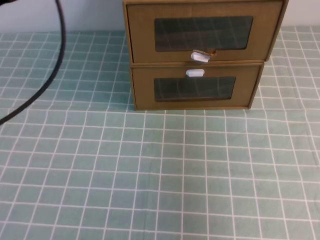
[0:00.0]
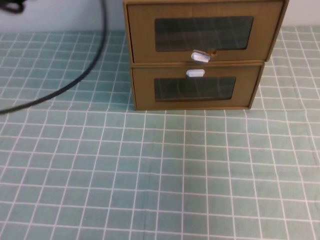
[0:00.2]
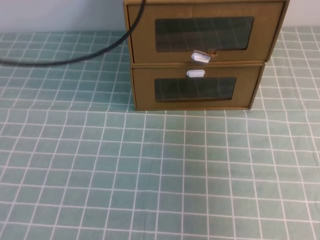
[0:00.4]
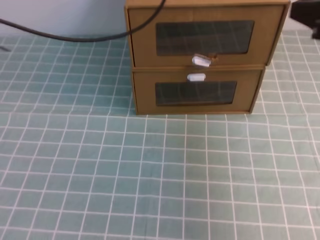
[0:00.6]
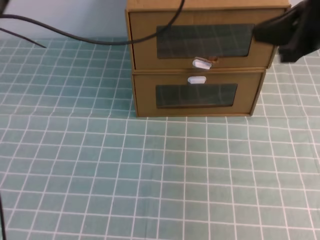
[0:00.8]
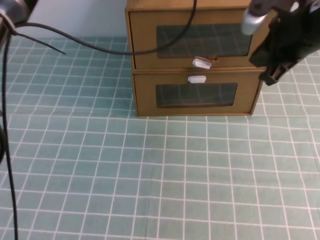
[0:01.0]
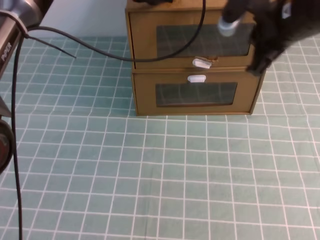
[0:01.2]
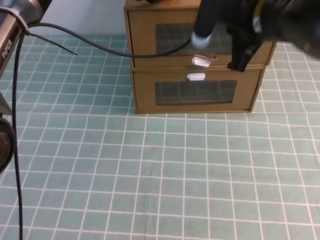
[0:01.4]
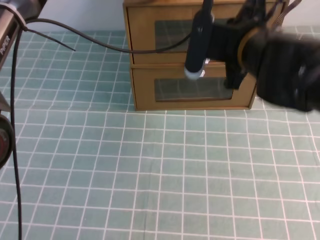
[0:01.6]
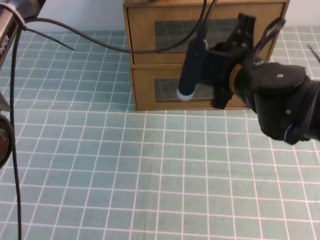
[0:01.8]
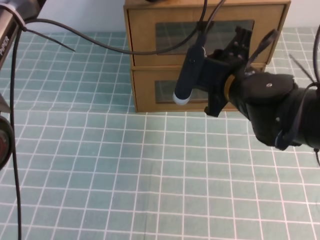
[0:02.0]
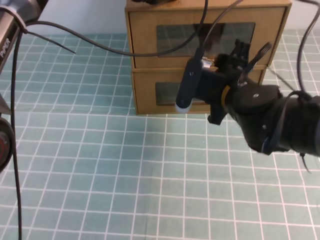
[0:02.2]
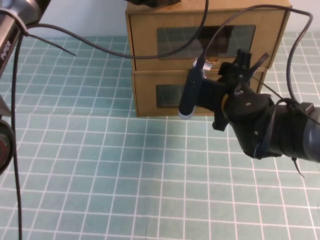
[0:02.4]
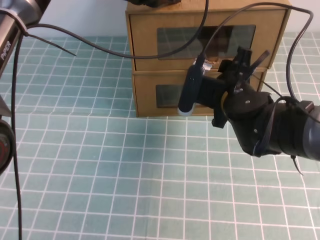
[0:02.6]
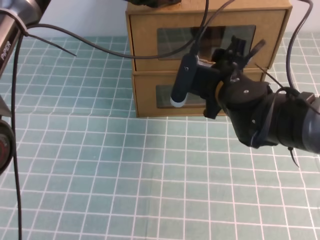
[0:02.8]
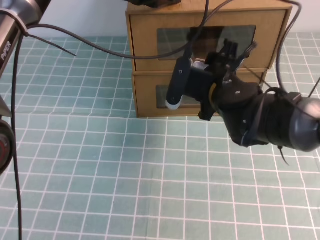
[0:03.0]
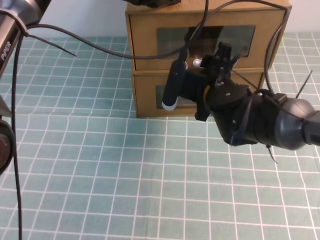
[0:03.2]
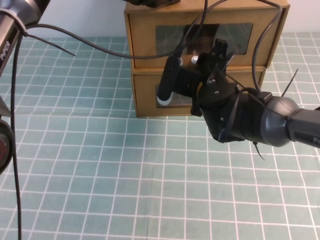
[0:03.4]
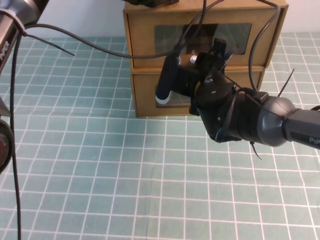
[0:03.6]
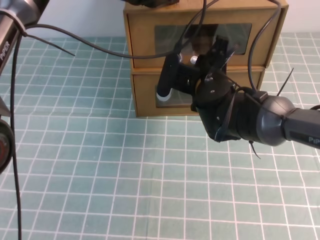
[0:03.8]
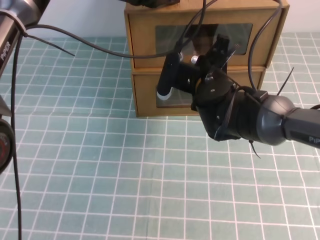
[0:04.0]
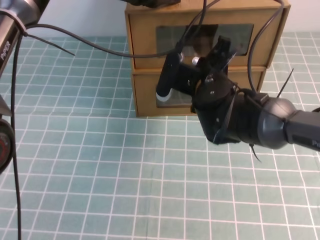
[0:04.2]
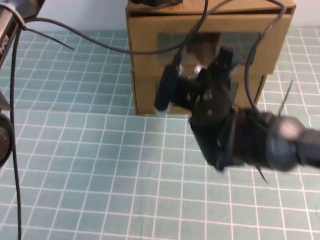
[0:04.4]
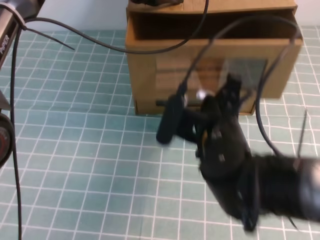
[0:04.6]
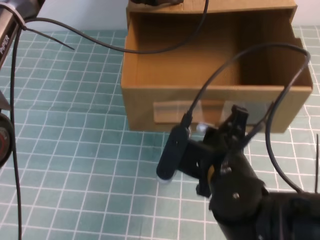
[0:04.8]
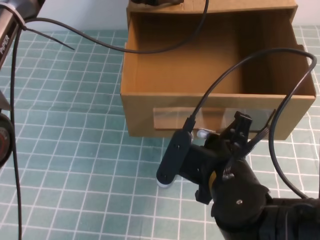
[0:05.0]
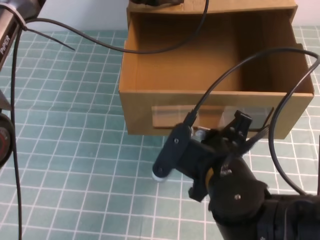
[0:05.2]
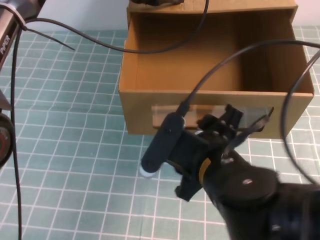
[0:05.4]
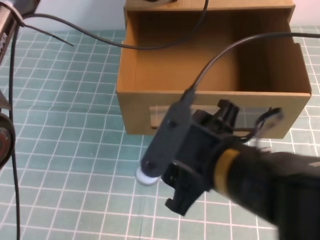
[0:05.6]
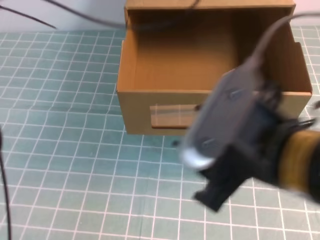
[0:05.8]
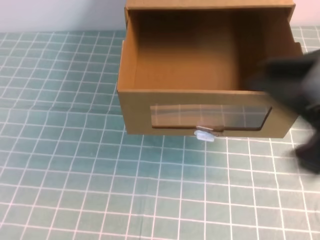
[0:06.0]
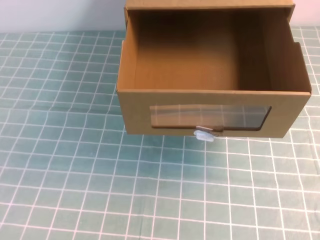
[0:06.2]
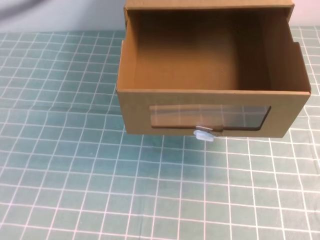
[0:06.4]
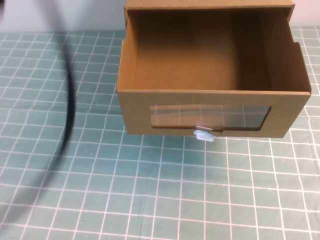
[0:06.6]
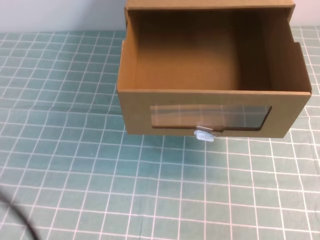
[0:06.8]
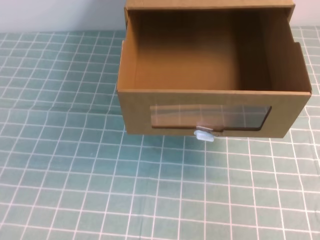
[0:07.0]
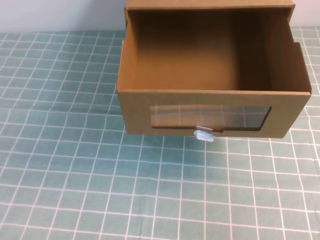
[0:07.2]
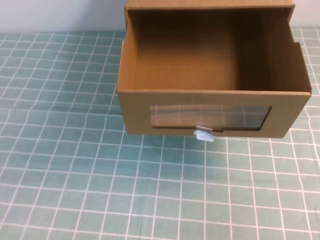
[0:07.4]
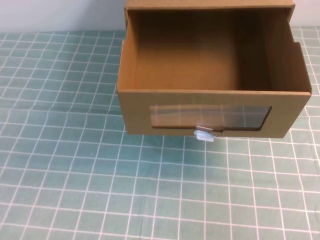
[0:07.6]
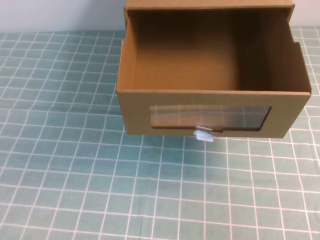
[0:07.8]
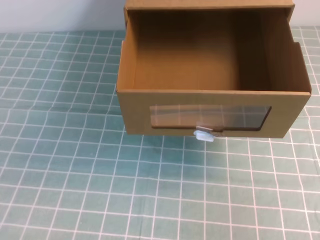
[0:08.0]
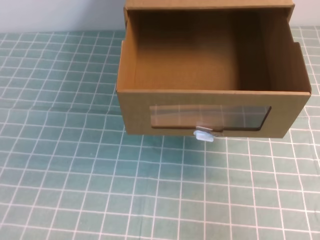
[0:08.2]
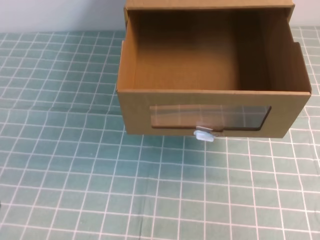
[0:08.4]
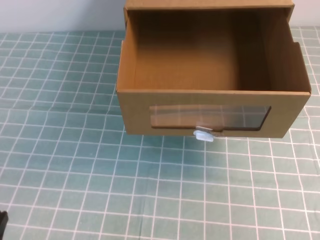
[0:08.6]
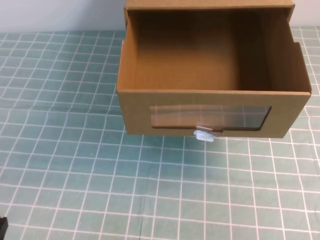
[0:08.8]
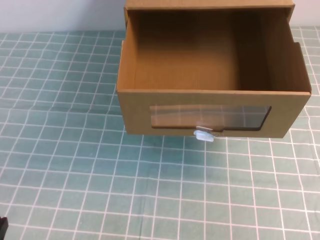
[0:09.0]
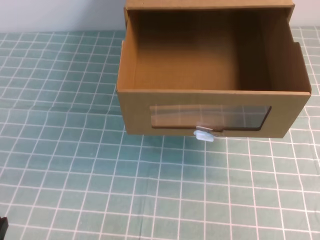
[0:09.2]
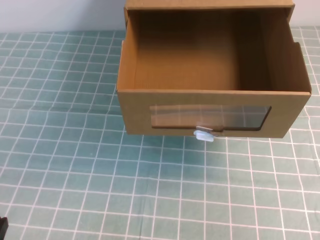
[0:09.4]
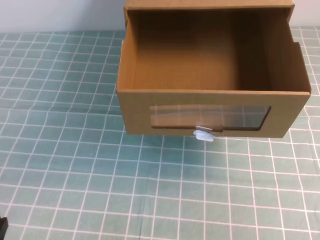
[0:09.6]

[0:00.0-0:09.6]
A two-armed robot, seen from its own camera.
Task of the whole recording: open the shoebox on the cyan tablecloth.
0:00.0 to 0:01.6: The left gripper heads forward and to the right, covering approximately 25 cm, while the right gripper travels to the left, forward and downward by approximately 25 cm.
0:01.6 to 0:03.2: The right gripper travels downward by roughly 10 cm, and opens its fingers.
0:03.2 to 0:04.8: The right gripper shifts approximately 15 cm backward, and closes.
0:04.8 to 0:06.4: The right gripper heads to the right, upward and backward, covering about 35 cm, and opens and closes again. The left gripper travels backward, upward and to the left by approximately 35 cm.
0:06.4 to 0:08.0: The left gripper moves downward and backward, approximately 30 cm. Meanwhile the right gripper heads downward, covering some 10 cm.

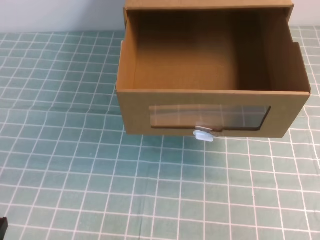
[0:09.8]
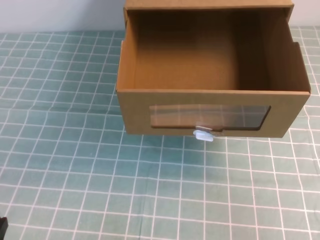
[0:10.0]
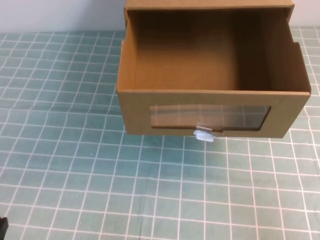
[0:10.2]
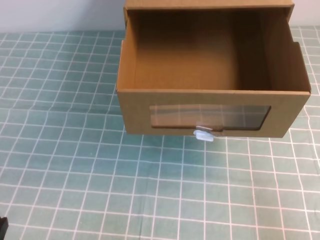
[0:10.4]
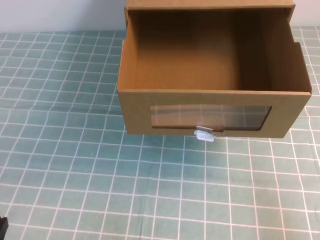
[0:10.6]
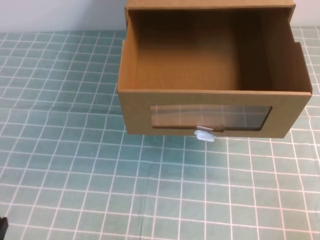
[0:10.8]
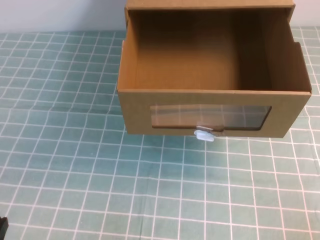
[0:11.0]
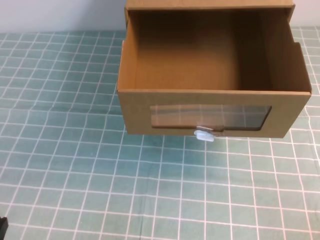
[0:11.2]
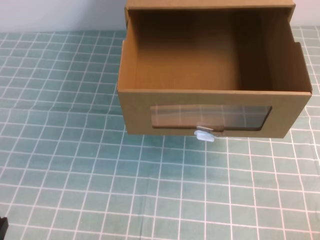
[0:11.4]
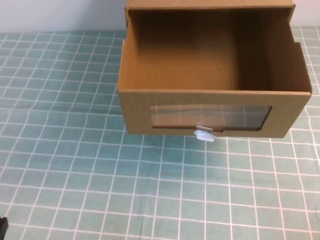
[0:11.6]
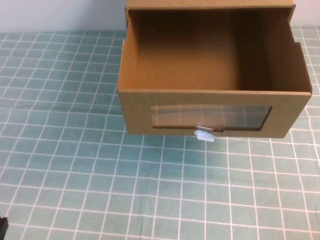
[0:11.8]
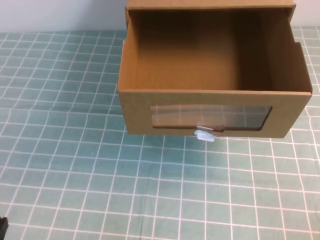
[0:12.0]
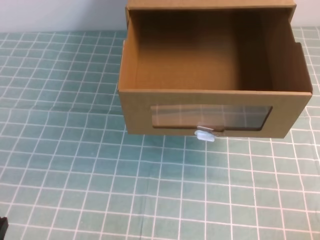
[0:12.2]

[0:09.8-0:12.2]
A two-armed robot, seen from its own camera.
Task of the whole recording: open the shoebox on the cyan tablecloth.
0:09.8 to 0:11.0: The right gripper travels downward by some 15 cm.

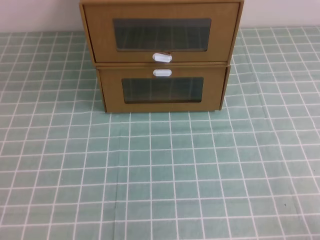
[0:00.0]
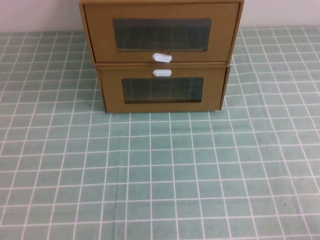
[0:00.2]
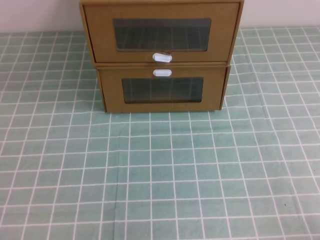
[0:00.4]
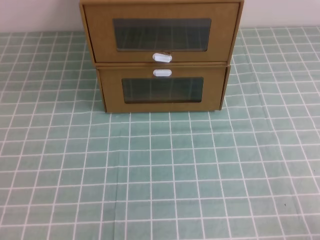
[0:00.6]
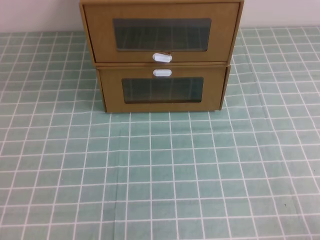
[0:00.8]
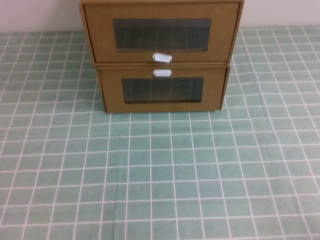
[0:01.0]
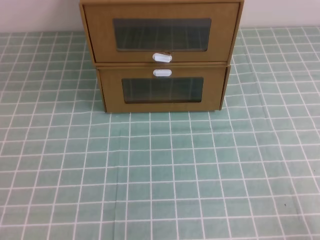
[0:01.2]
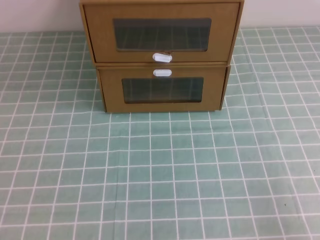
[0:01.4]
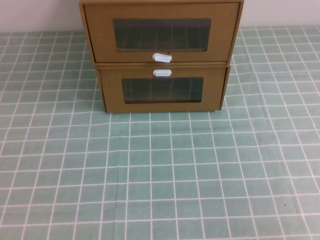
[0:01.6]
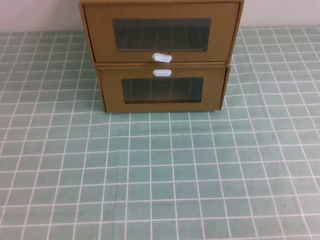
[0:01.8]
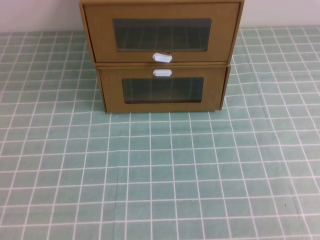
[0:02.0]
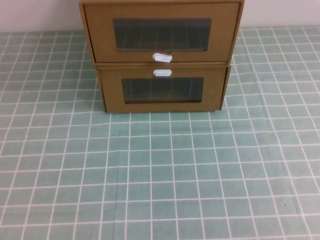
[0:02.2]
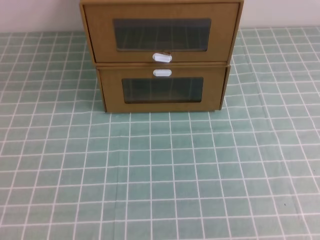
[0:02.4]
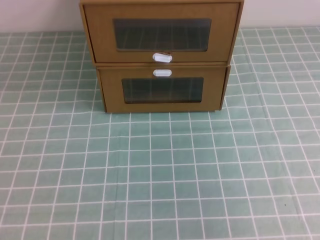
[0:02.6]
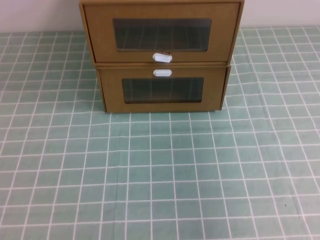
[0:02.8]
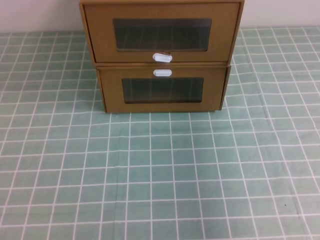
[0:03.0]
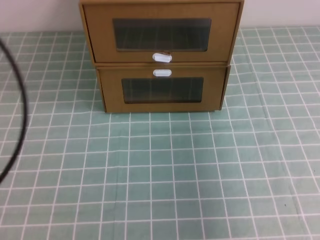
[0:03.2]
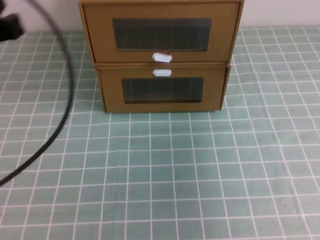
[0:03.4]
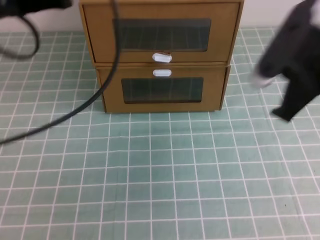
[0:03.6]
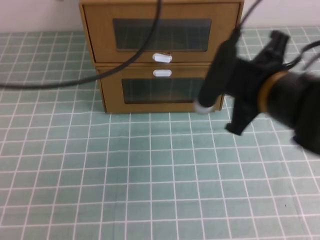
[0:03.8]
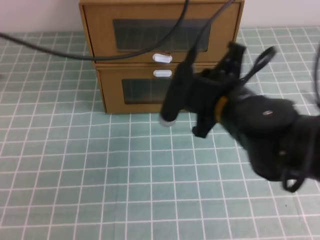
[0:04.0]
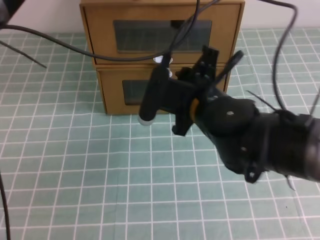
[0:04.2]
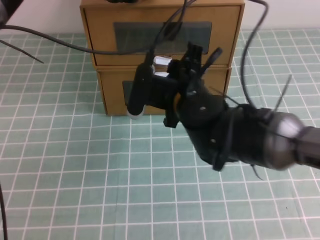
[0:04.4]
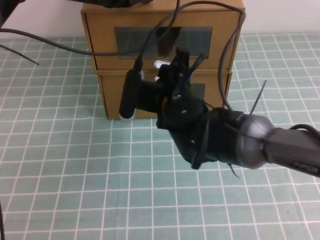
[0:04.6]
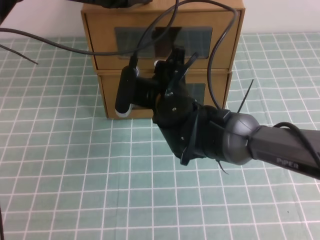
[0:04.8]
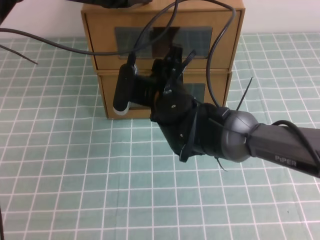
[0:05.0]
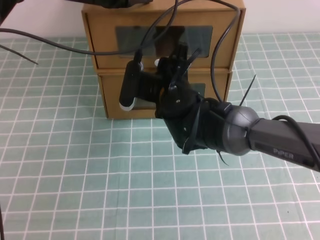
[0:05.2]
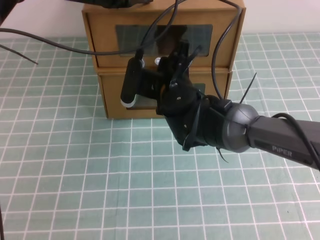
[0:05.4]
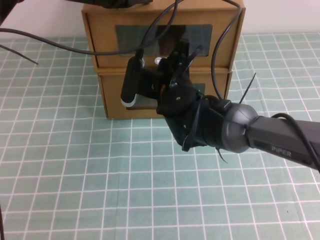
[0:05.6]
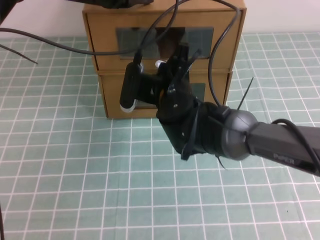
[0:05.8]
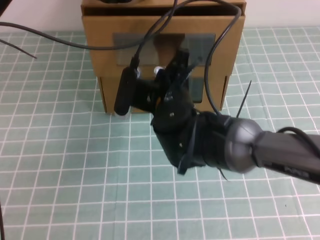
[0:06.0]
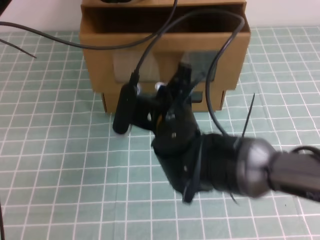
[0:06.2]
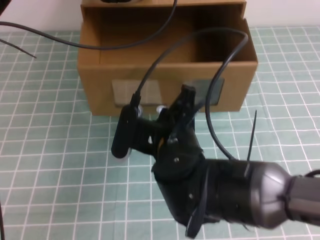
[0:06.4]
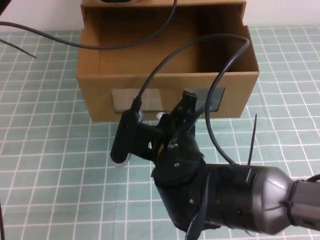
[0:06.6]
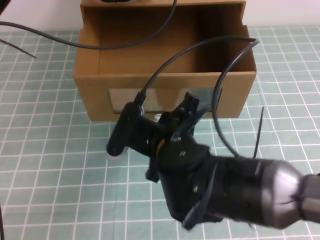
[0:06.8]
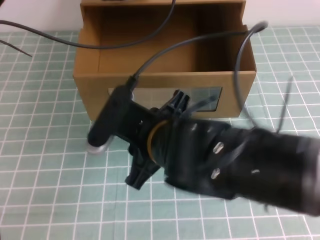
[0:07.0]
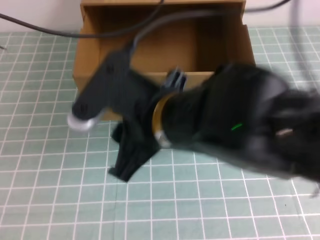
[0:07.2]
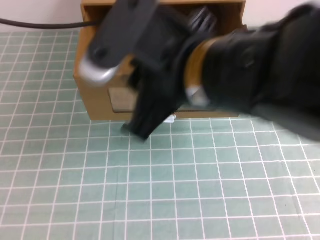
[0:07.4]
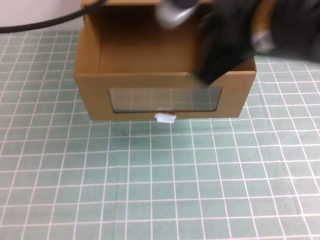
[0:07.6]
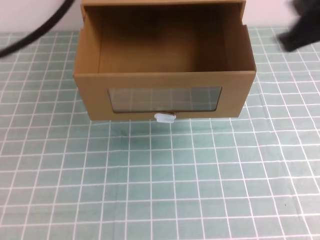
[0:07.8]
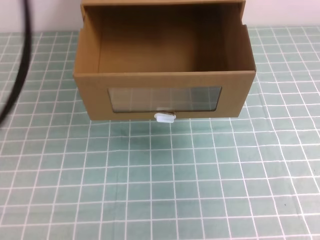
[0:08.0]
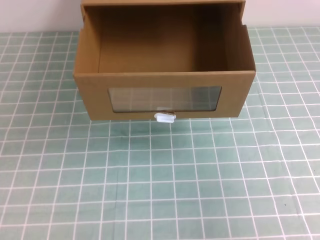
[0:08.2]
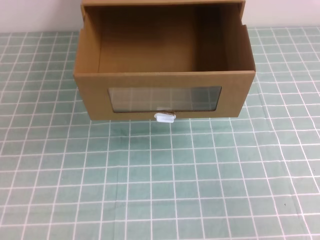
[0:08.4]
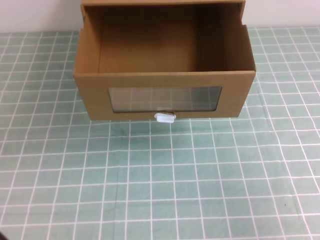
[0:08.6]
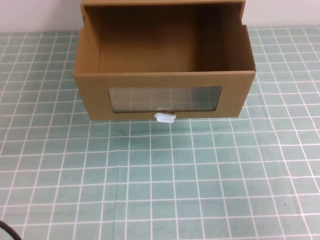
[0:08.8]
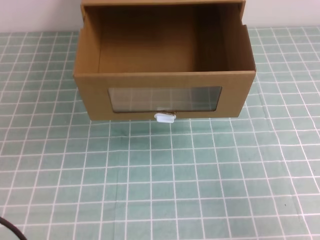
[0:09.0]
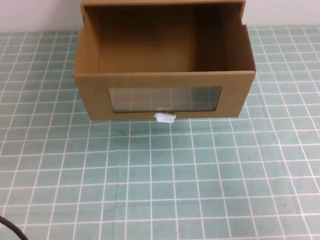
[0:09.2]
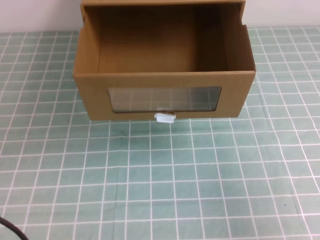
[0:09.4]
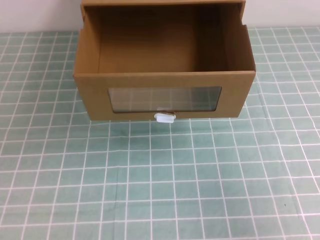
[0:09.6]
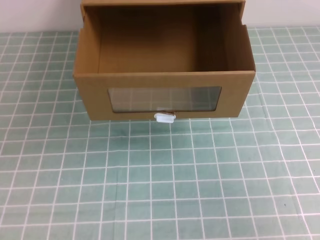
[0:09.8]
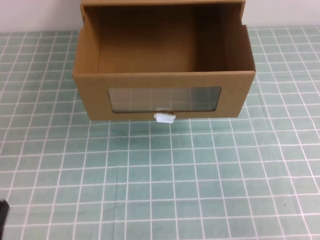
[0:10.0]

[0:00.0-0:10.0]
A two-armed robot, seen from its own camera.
Task of the whole recording: open the shoebox on the cyan tablecloth.
0:01.4 to 0:02.8: Both grippers move upward, some 25 cm.
0:02.8 to 0:04.2: The right gripper shifts some 35 cm to the left, forward and downward, and opens its fingers. Meanwhile the left gripper is displaced forward and to the right by approximately 35 cm.
0:04.2 to 0:05.8: The right gripper travels forward and to the left by about 10 cm, and closes.
0:05.8 to 0:07.2: The right gripper travels backward and upward by about 20 cm, and opens up. The left gripper shifts approximately 5 cm upward.
0:07.2 to 0:08.6: The right gripper goes roughly 30 cm to the right, and closes its fingers. The left gripper shifts about 35 cm backward and to the left.
